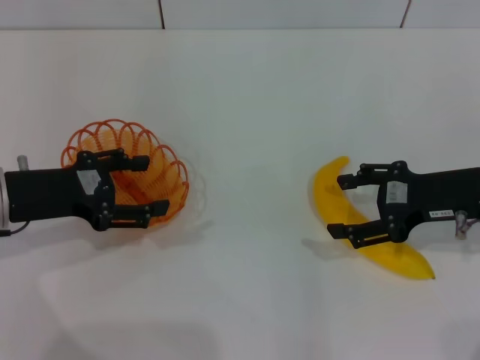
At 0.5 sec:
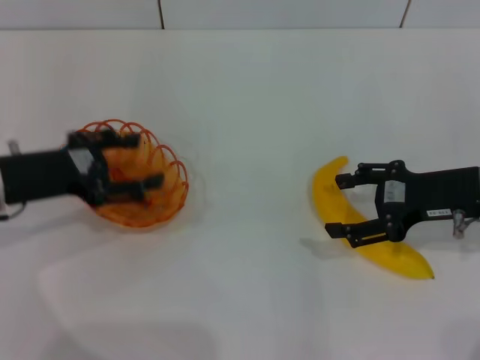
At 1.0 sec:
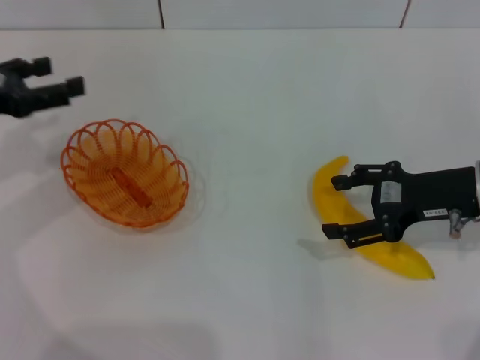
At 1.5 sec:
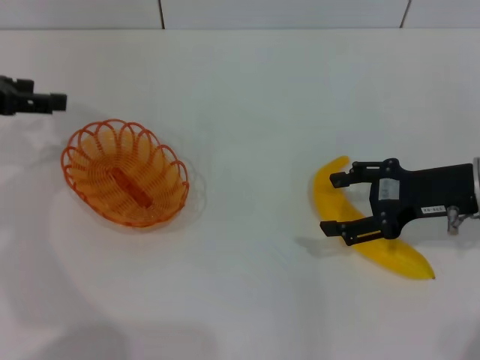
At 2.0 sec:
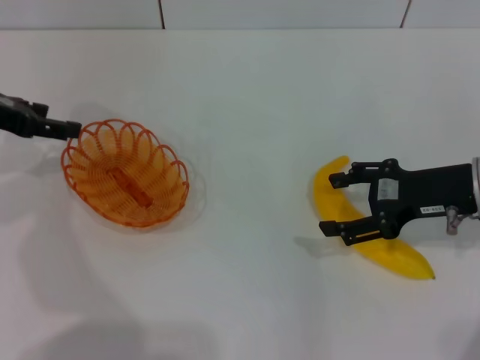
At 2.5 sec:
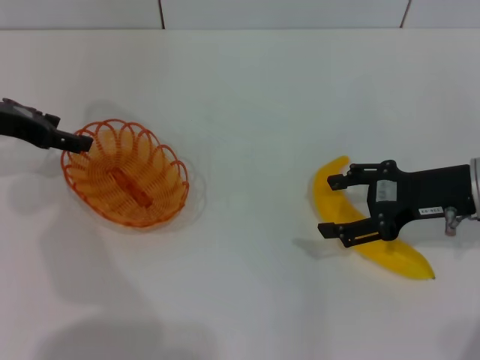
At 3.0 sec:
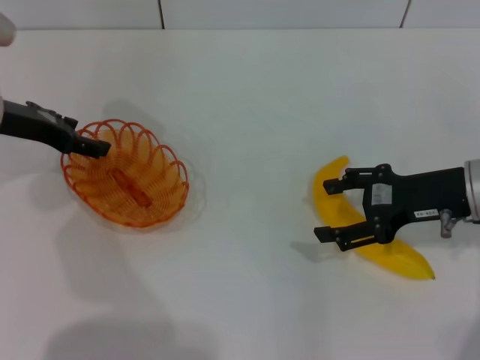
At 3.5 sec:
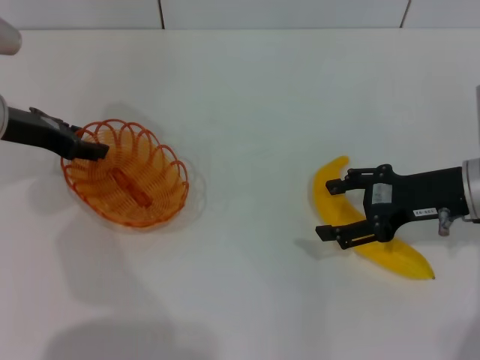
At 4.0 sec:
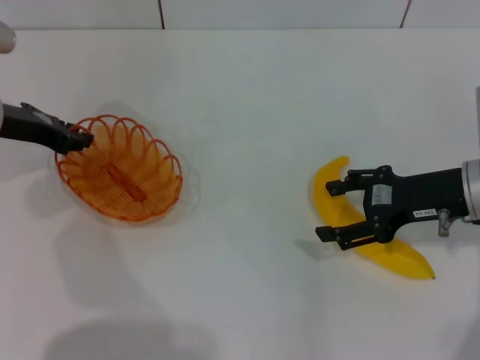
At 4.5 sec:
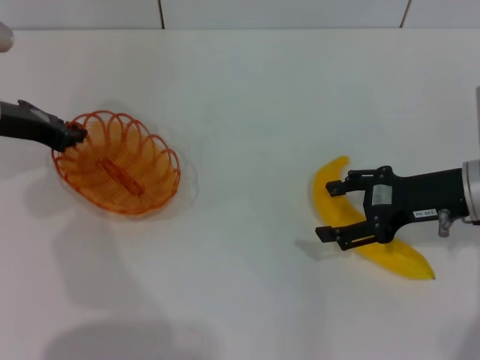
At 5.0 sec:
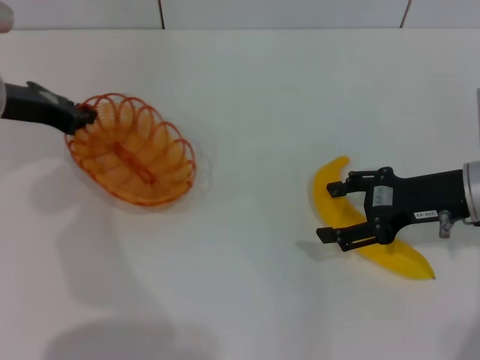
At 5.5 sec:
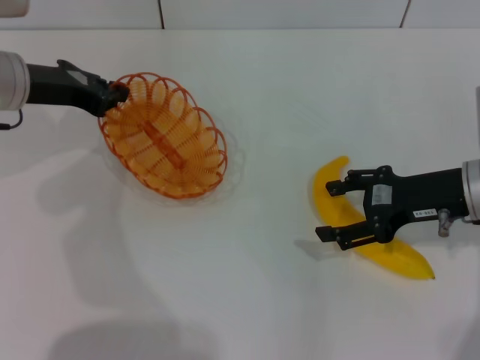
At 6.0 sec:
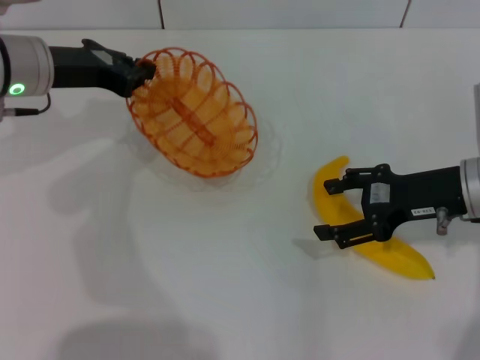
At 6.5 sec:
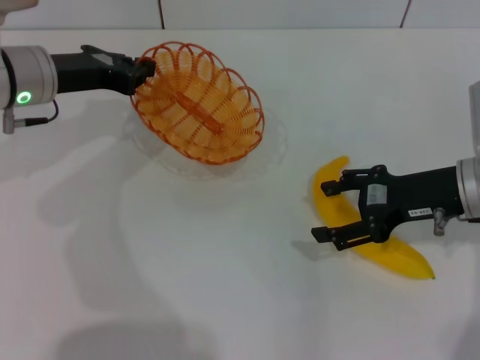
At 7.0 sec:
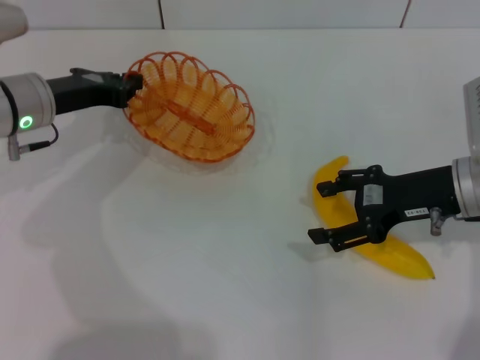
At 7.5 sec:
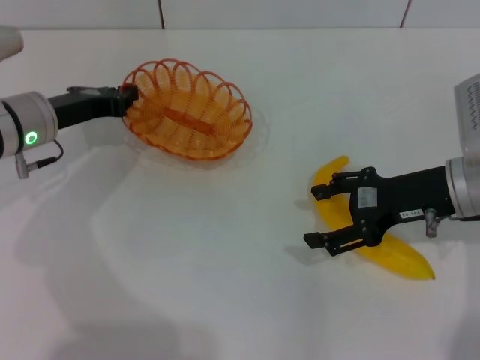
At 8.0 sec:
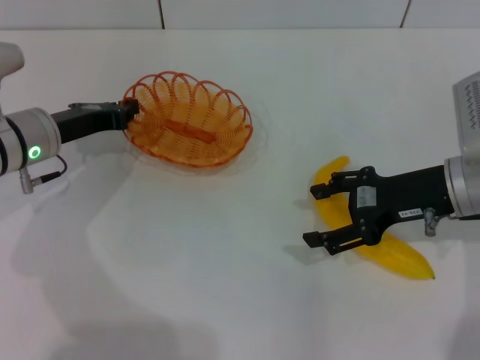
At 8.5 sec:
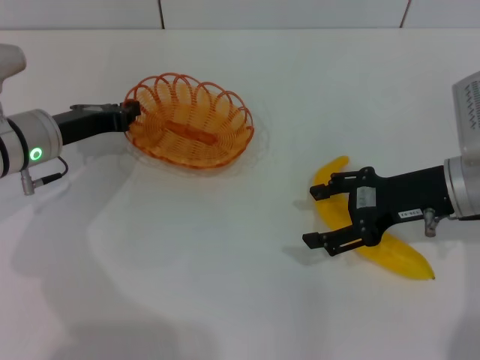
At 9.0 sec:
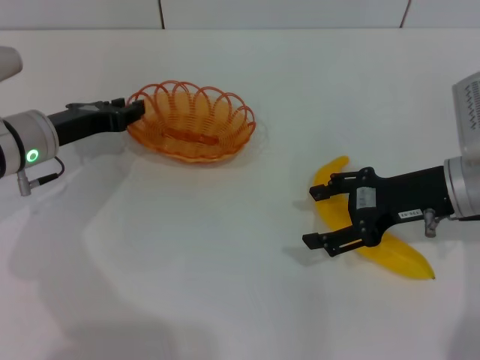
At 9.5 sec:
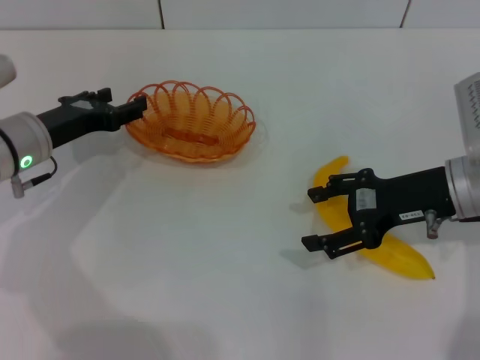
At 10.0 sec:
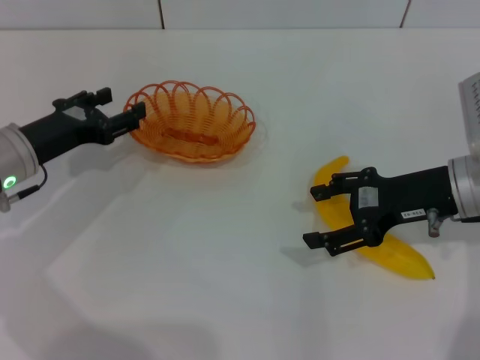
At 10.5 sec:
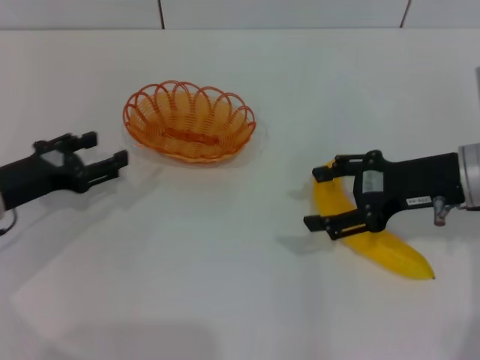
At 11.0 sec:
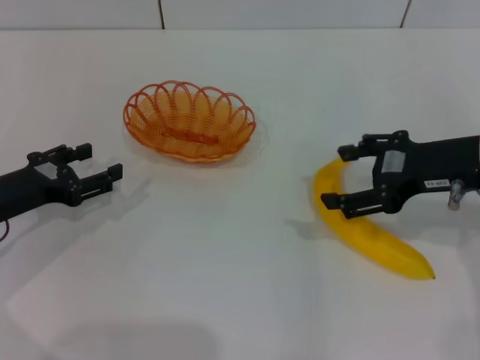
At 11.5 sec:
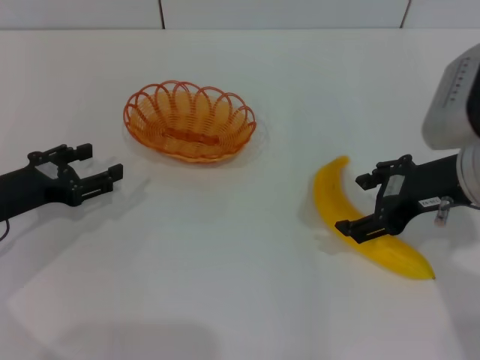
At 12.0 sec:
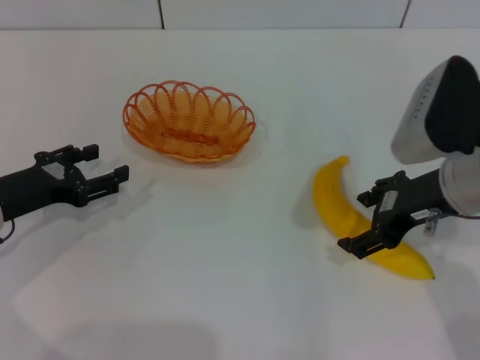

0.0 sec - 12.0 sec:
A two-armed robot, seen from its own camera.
Step, 0.0 sec - 5.0 sec: Pick up the basket with the left gripper.
Step, 6.0 sec - 9.5 sec: Place the basket in the center of view with the left gripper.
0.0 sec - 2.0 sec: The left gripper heads forward, upward and to the left, covering approximately 10 cm.
2.0 sec - 4.0 sec: The left gripper moves some 5 cm, and closes.
4.0 sec - 6.0 sec: The left gripper shifts approximately 5 cm to the right.
6.0 sec - 8.0 sec: The left gripper moves downward, some 10 cm.
8.0 sec - 10.0 sec: The left gripper opens.
10.0 sec - 12.0 sec: The right gripper ends up some 5 cm from where it was; the left gripper changes place by roughly 5 cm.

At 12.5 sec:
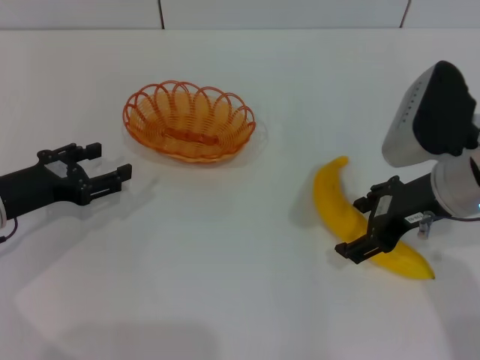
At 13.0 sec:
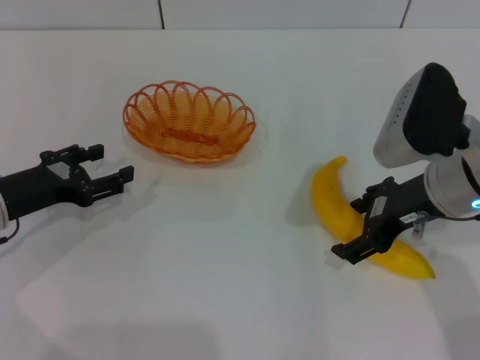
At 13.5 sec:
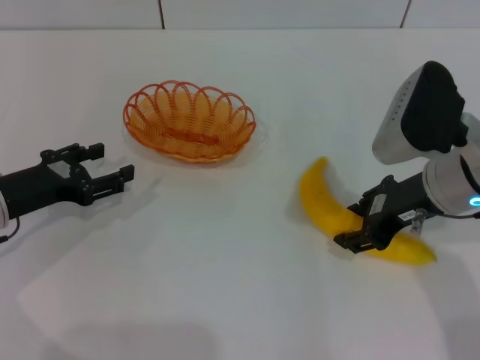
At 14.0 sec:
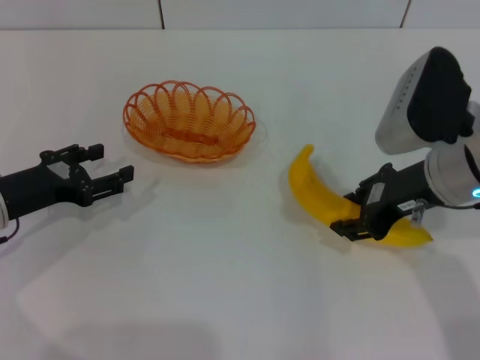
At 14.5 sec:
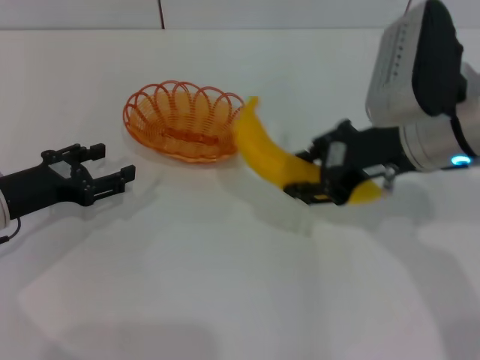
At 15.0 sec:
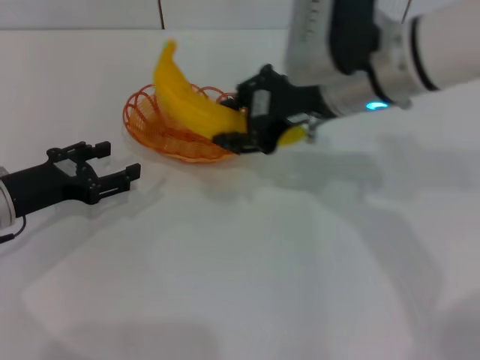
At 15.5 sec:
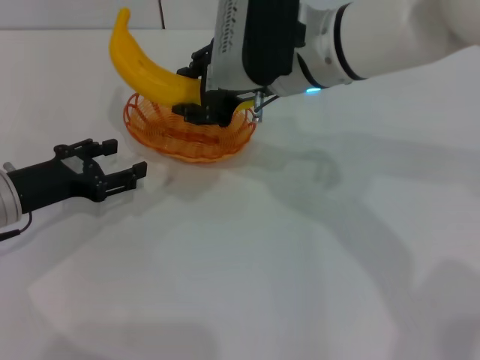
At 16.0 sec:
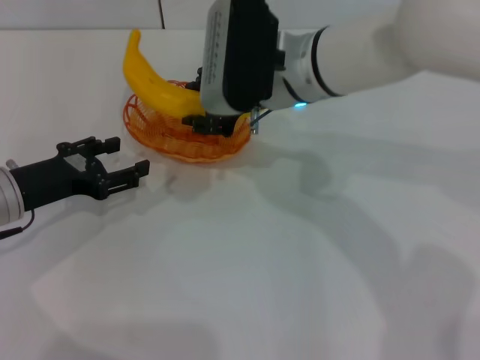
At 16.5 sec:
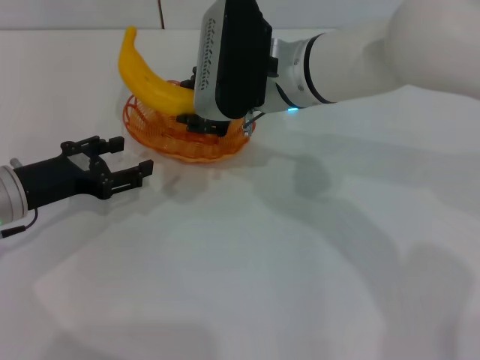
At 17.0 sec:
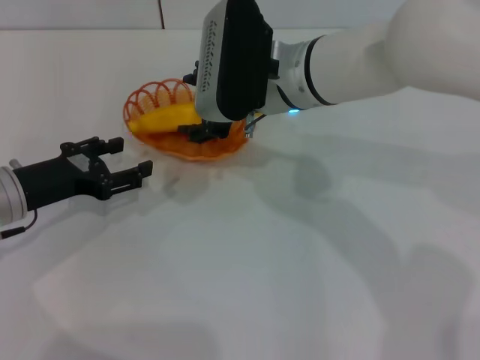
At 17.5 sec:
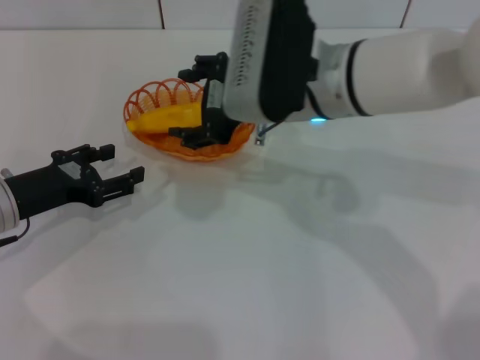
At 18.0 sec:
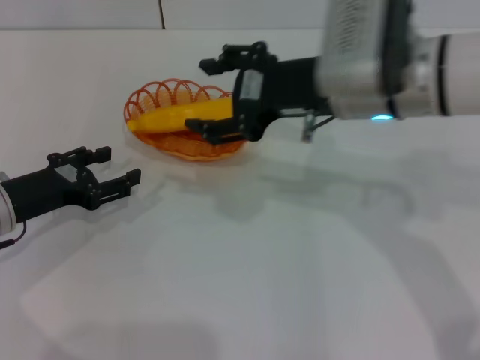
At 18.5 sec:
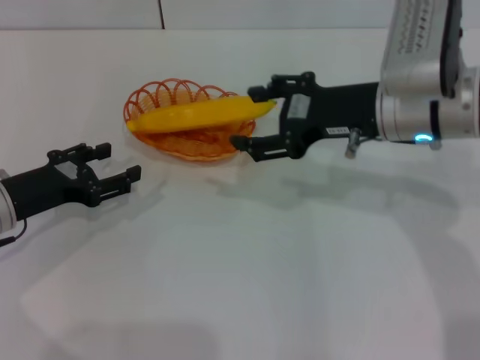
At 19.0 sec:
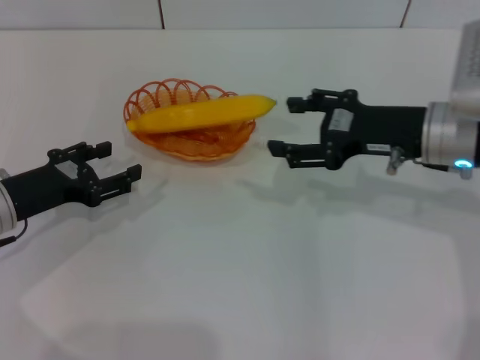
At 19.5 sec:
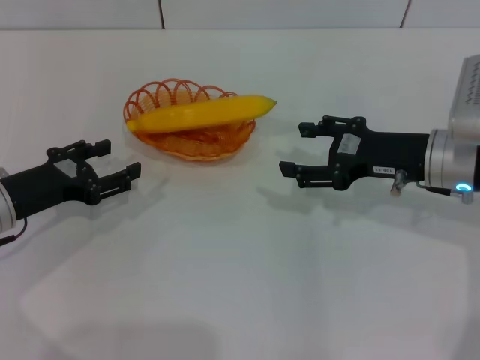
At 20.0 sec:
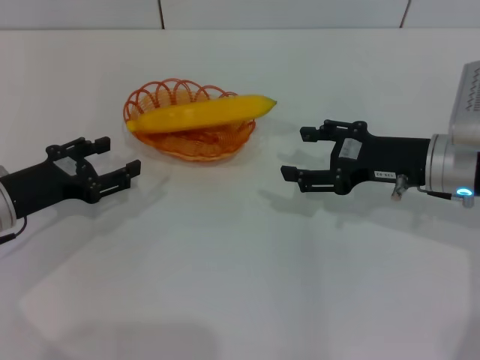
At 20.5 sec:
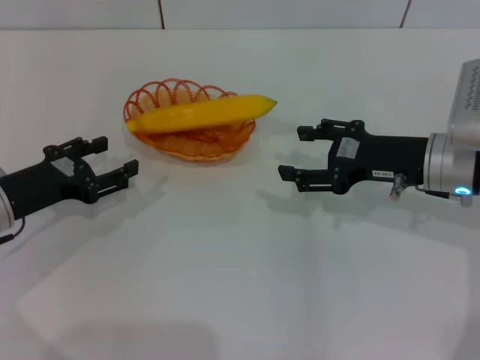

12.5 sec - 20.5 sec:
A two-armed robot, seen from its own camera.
Step, 14.5 sec - 17.5 sec: Place the banana into the basket with the right gripper.
12.5 sec - 14.5 sec: The right gripper shifts by about 5 cm, and closes up.
14.5 sec - 16.5 sec: The right gripper heads to the left and forward, covering approximately 15 cm.
16.5 sec - 18.5 sec: The right gripper travels to the right by roughly 10 cm, and opens its fingers.
18.5 sec - 20.5 sec: The right gripper shifts roughly 10 cm downward and to the right.
